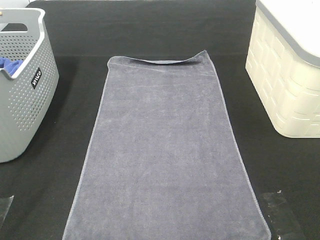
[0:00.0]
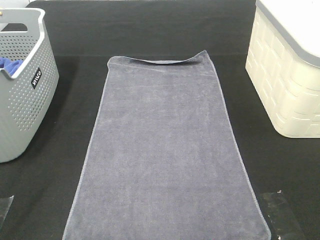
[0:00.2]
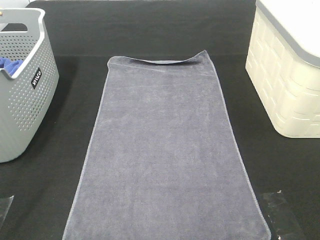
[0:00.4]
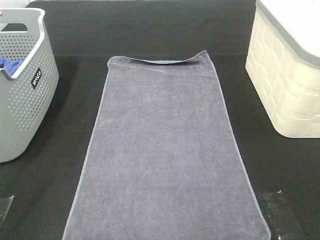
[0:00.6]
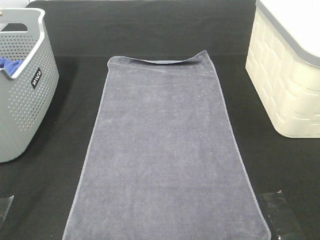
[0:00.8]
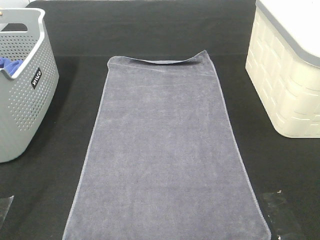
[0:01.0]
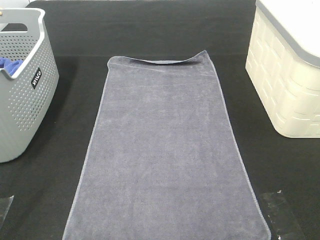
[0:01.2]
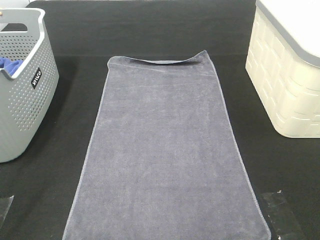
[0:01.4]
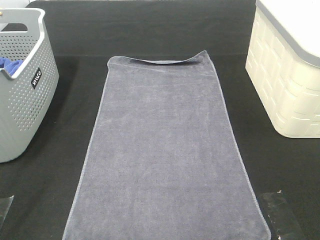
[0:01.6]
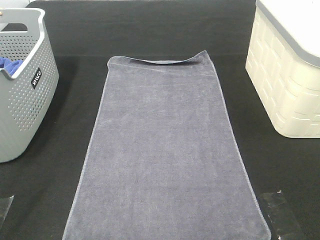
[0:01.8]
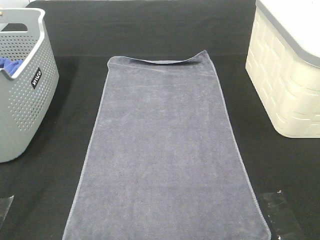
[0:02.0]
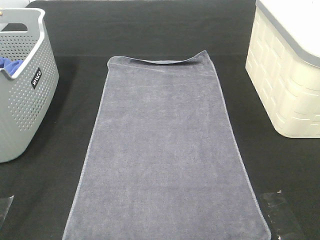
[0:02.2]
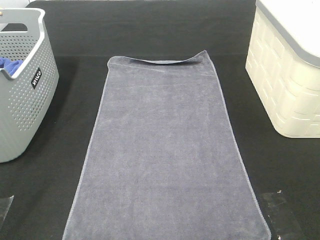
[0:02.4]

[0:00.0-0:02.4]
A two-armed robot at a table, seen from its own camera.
Task of the whole recording: Remove the towel and place it.
0:00.0 to 0:02.4: Both grippers stay put.

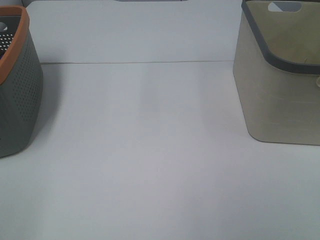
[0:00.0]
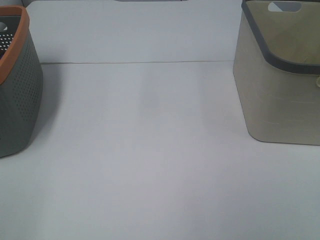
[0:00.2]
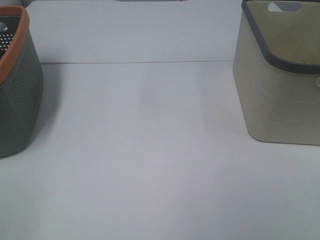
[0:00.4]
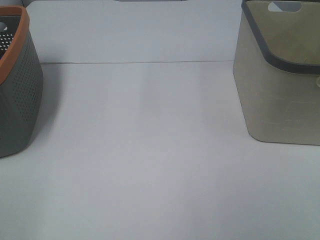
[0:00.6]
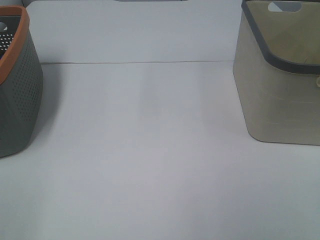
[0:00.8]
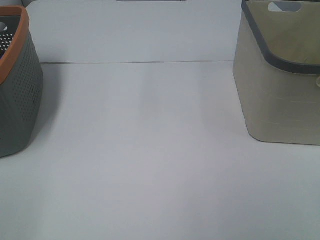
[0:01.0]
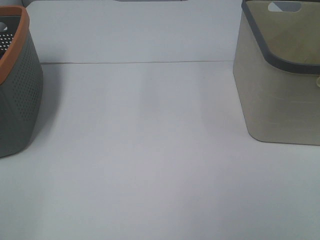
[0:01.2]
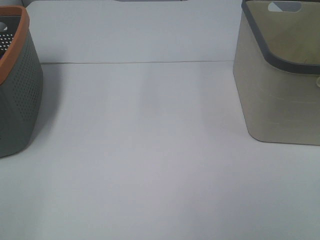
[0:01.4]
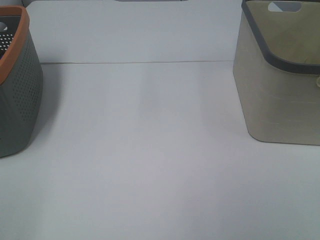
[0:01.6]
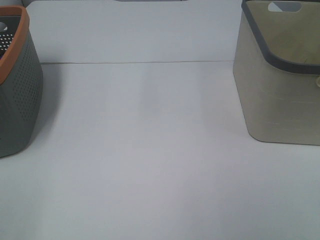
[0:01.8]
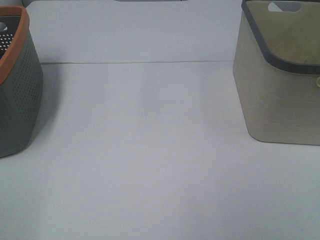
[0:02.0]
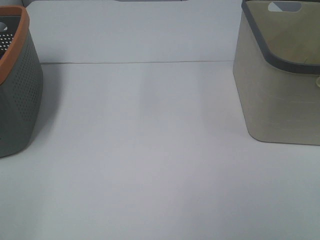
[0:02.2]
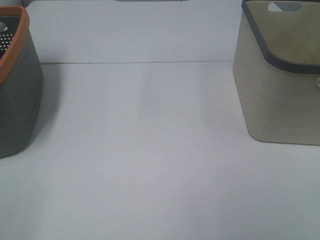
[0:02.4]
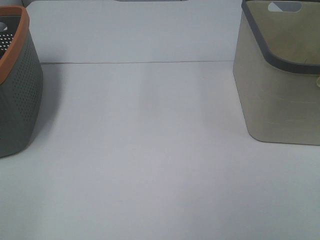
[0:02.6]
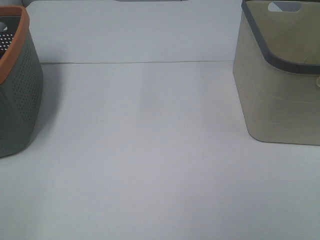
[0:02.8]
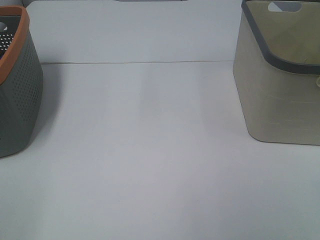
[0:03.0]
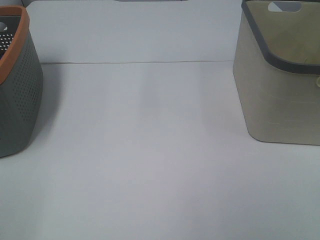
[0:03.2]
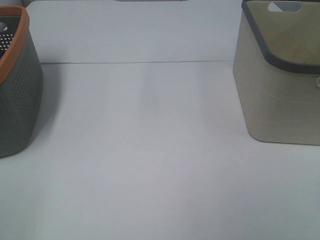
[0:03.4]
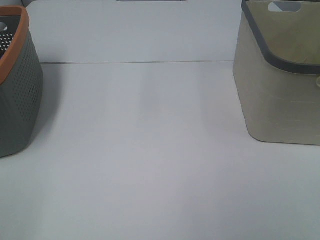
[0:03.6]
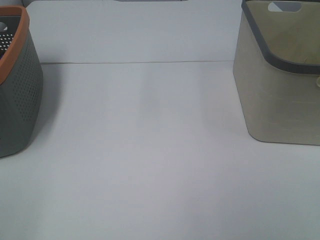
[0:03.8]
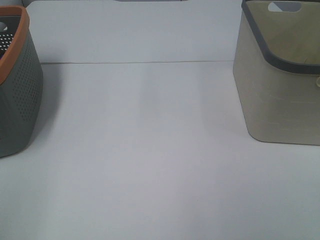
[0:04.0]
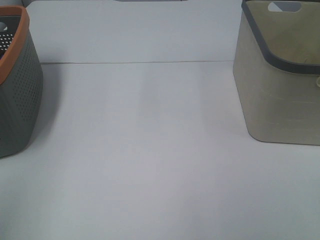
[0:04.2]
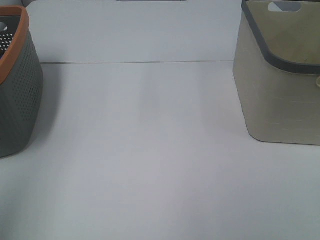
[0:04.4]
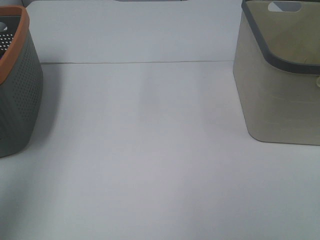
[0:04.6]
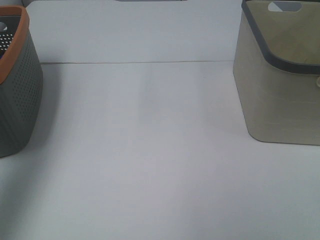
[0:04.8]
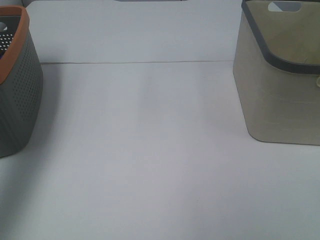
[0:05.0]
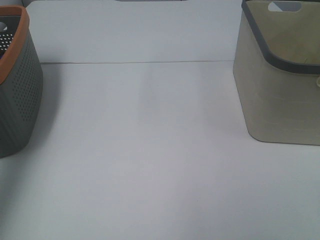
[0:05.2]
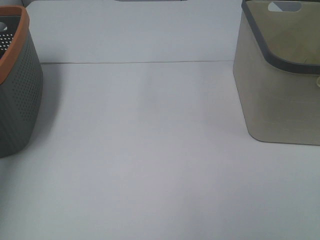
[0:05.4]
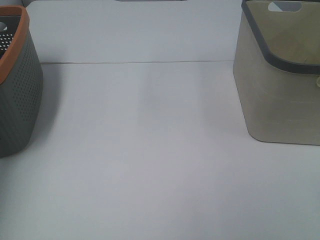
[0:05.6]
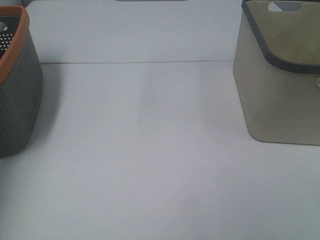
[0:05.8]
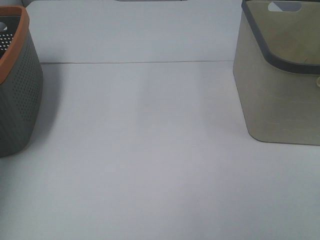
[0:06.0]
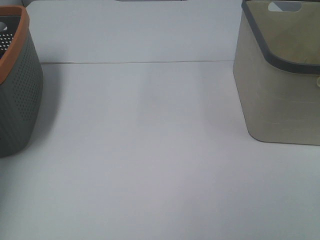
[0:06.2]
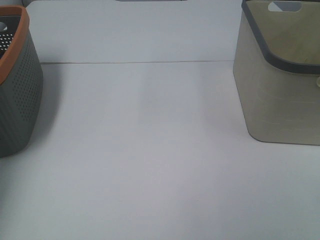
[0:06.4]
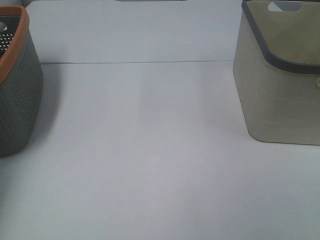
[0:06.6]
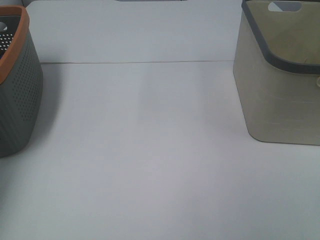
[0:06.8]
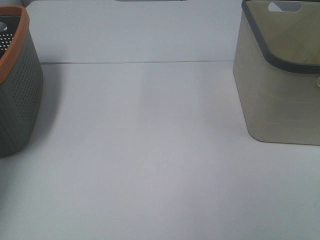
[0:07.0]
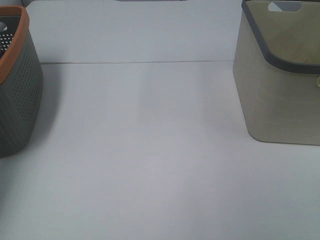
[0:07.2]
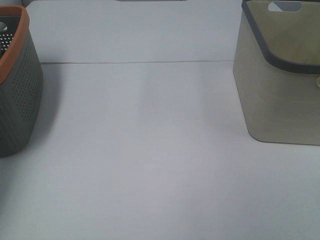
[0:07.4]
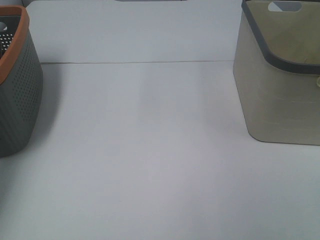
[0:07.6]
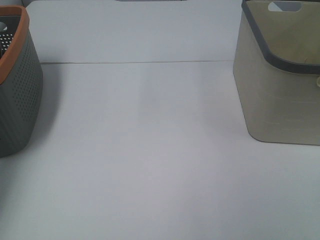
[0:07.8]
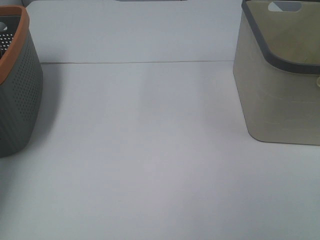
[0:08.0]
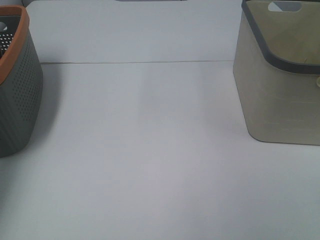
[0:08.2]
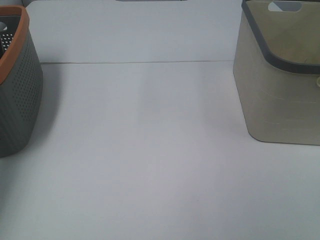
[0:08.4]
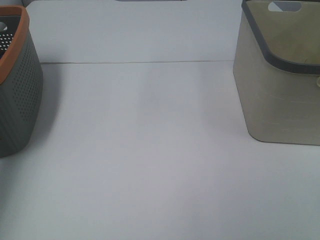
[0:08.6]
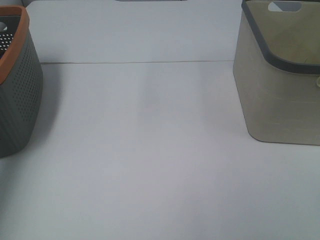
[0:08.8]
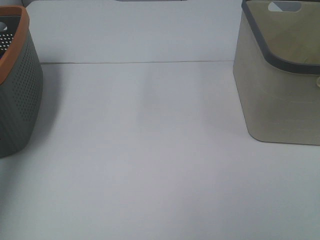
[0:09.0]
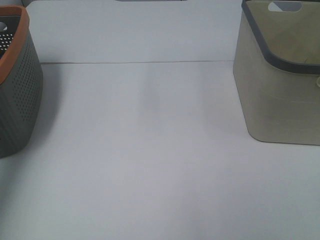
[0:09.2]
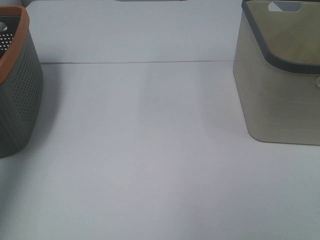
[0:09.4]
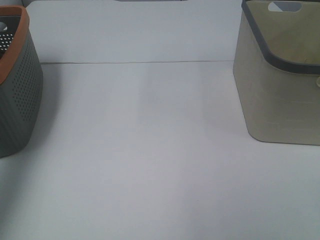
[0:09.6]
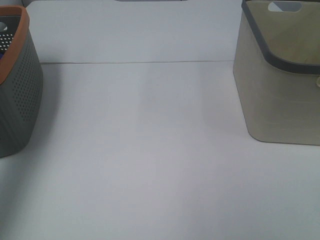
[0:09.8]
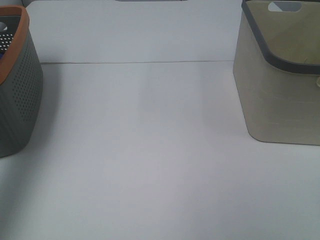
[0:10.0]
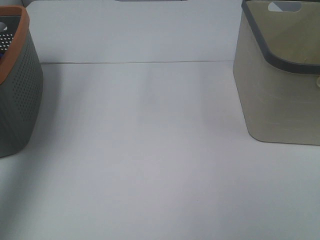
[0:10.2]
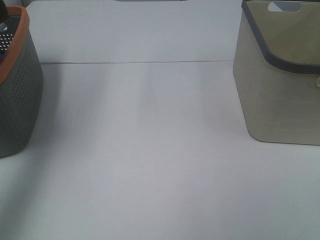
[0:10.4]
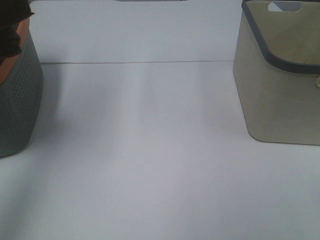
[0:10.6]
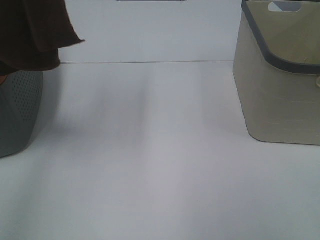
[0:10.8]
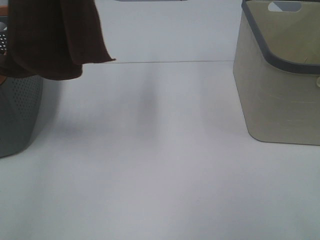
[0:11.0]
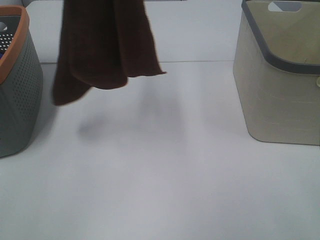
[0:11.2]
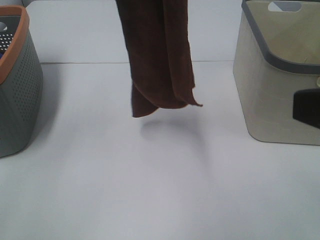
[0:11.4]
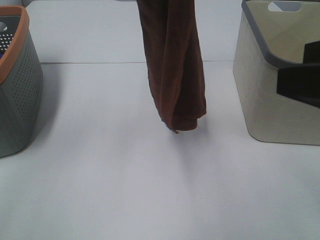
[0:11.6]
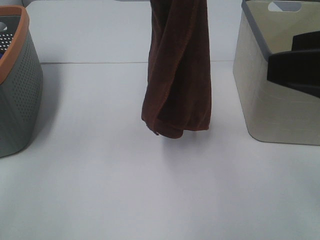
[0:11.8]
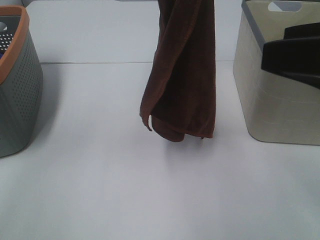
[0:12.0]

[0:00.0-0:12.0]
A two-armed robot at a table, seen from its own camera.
Task of the whole recording: Remove the towel and place it.
0:00.0 to 0:03.0: The two grippers keep their place.
0:03.0 to 0:04.4: The left gripper heads upward and forward, covering roughly 15 cm.
0:04.4 to 0:06.0: The left gripper is displaced forward and downward by roughly 35 cm.
0:09.0 to 0:10.4: The left gripper shifts approximately 30 cm upward and backward.
0:10.4 to 0:12.0: The right gripper is displaced forward by roughly 15 cm, while the left gripper heads to the right and downward, covering some 30 cm.

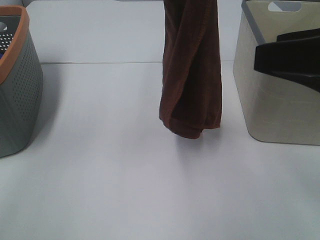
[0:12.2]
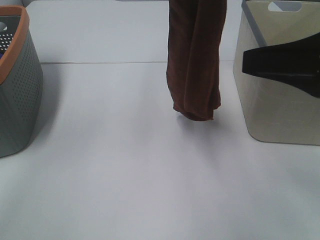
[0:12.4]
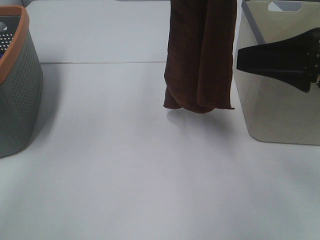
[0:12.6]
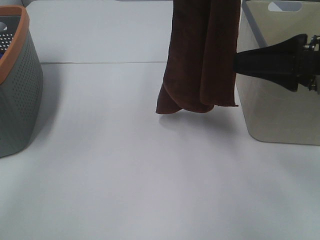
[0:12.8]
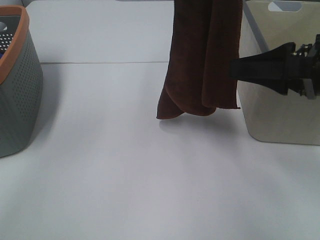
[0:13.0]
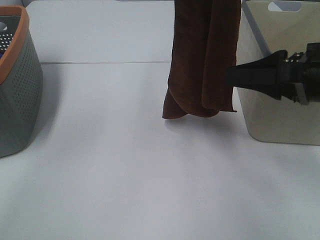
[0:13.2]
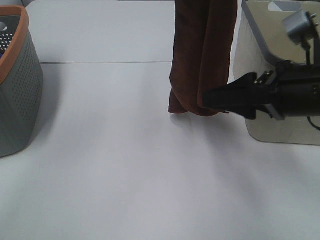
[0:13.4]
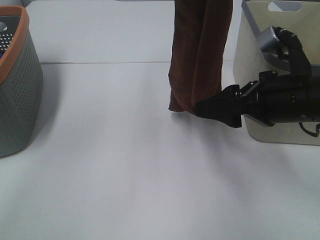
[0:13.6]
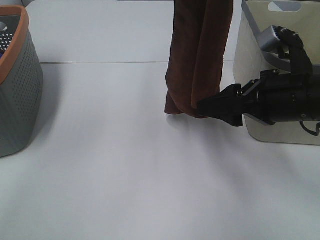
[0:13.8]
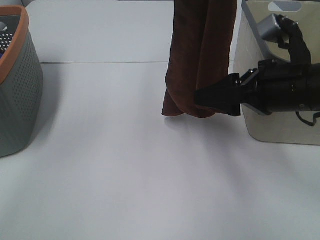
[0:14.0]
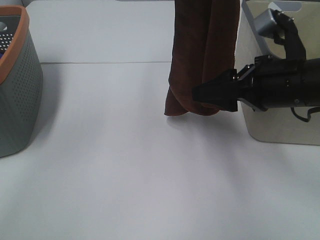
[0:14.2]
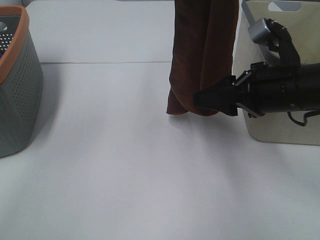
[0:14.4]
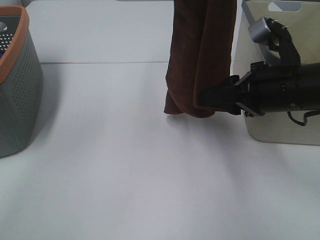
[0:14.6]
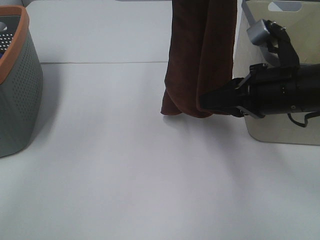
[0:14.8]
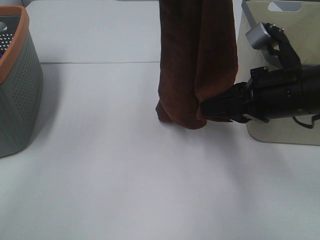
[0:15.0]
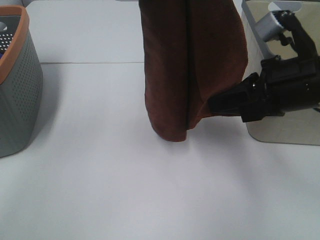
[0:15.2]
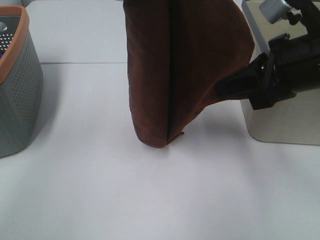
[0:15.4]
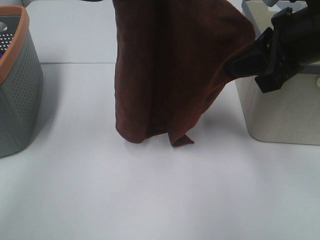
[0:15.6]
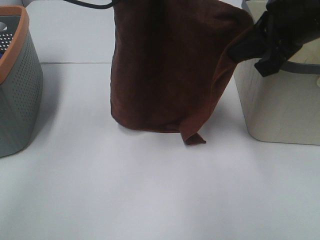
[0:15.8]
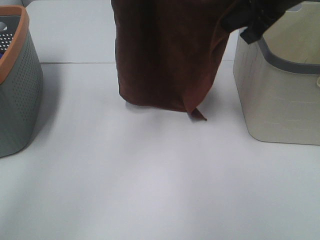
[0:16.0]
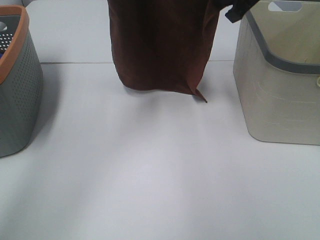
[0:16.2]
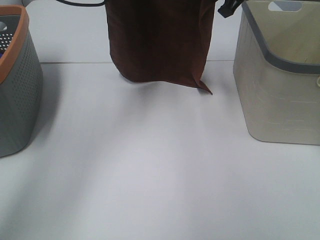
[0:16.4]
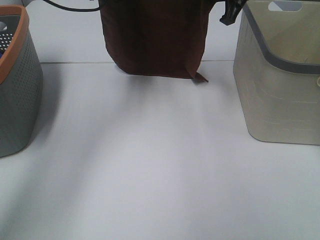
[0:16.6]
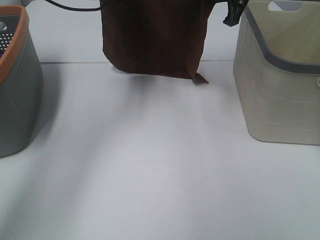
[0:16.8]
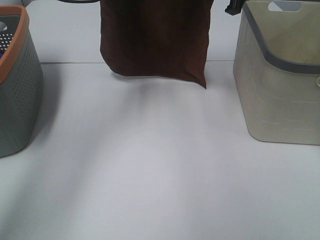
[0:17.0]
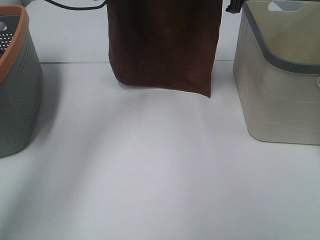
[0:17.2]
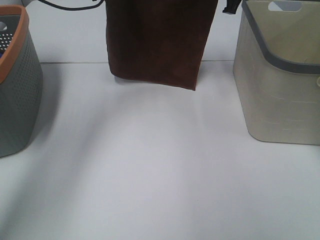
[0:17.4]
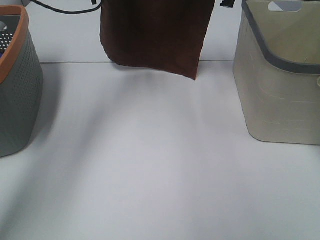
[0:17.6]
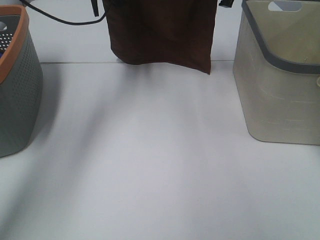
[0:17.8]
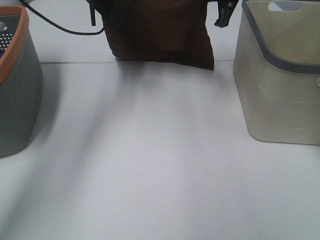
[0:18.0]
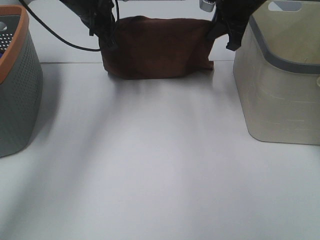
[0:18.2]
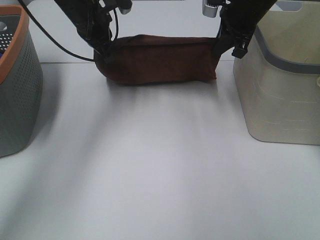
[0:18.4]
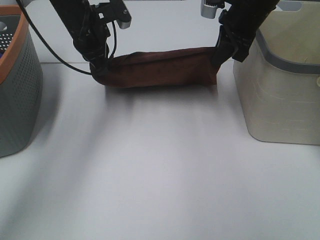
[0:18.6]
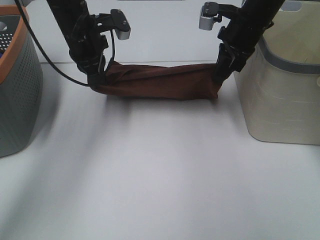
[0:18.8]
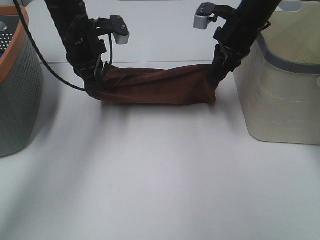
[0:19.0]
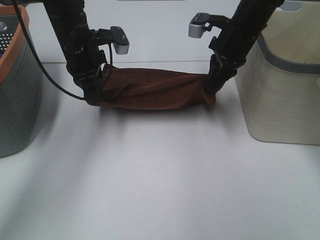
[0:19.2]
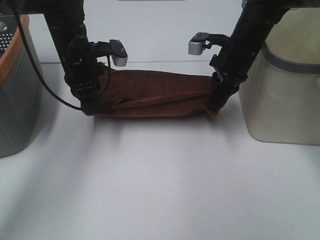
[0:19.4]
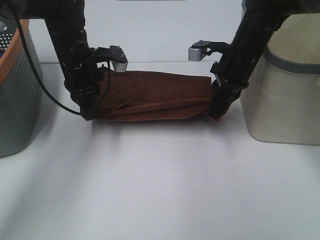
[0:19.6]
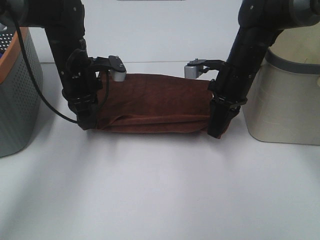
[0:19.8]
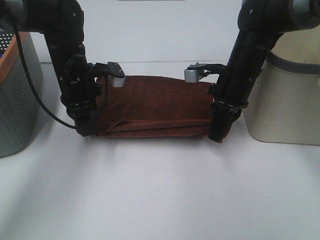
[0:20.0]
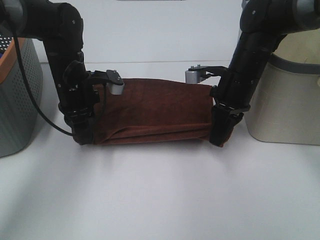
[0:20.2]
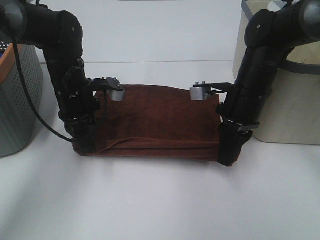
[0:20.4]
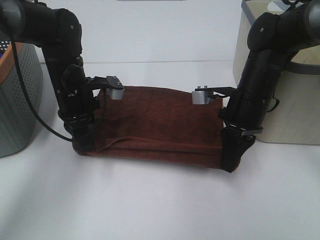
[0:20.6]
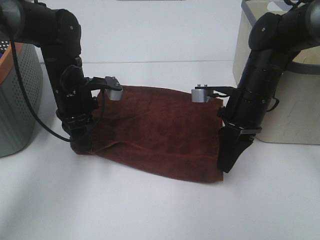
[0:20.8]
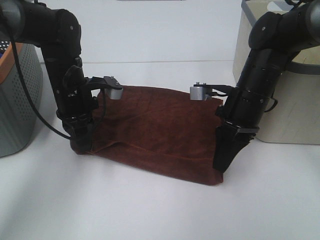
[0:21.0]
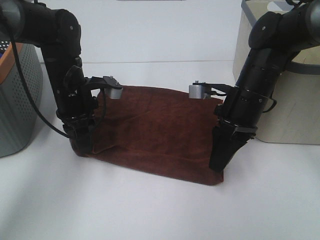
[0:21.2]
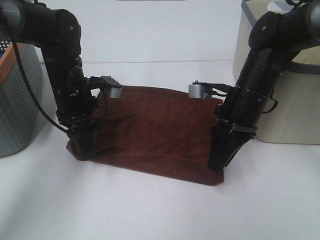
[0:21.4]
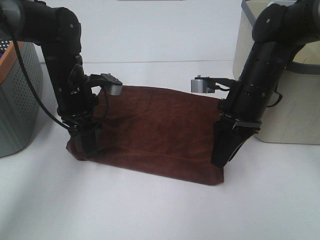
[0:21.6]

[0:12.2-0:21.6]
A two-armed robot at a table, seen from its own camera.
Task of the whole recording: Remove the towel and place it.
Step, 0:13.0 to 0:16.6: Right hand: spread the brown towel flat on the table.
Step, 0:13.0 to 0:17.0: Left hand: spread the brown towel flat on the table.
0:12.2 to 0:13.8: The right gripper heads downward and forward, covering some 15 cm.
0:13.8 to 0:15.4: The right gripper is displaced upward by approximately 5 cm, and closes up.
0:15.4 to 0:17.0: The right gripper travels forward by some 20 cm, while the left gripper shifts approximately 15 cm forward and downward.
0:17.0 to 0:18.4: The two grippers go roughly 10 cm downward.
0:18.4 to 0:20.0: The right gripper is displaced downward and backward by approximately 15 cm. Meanwhile the left gripper shifts about 10 cm backward and downward.
0:20.0 to 0:21.6: The right gripper goes about 5 cm backward, and opens its fingers; the left gripper opens.
